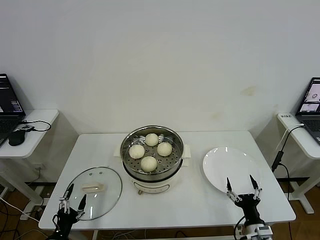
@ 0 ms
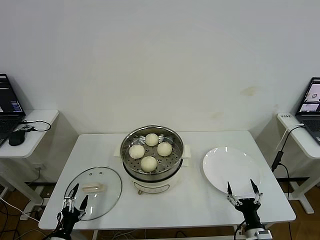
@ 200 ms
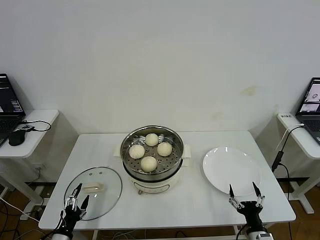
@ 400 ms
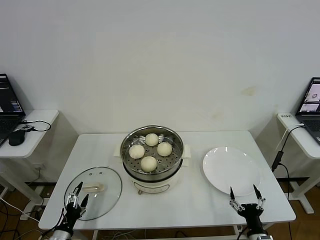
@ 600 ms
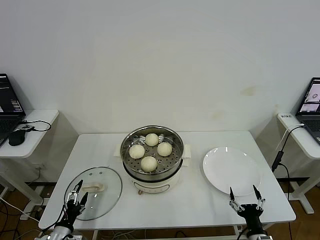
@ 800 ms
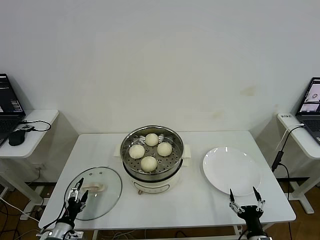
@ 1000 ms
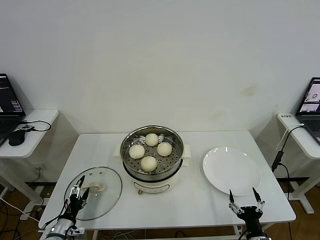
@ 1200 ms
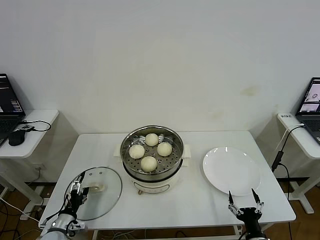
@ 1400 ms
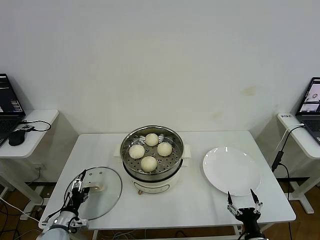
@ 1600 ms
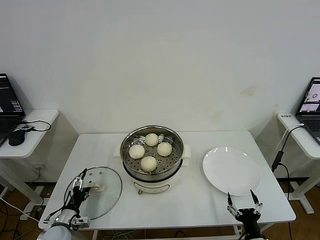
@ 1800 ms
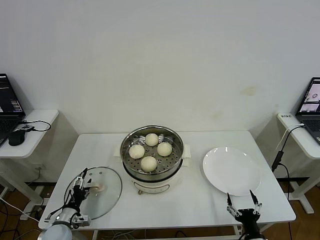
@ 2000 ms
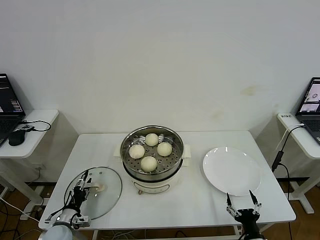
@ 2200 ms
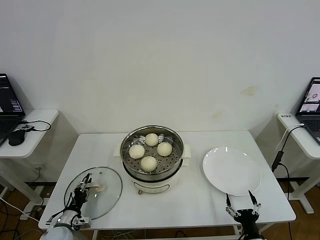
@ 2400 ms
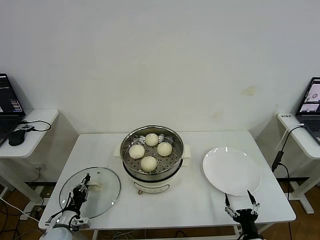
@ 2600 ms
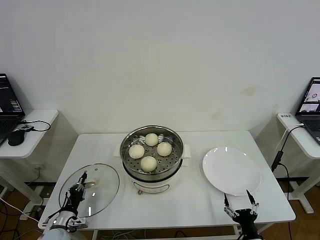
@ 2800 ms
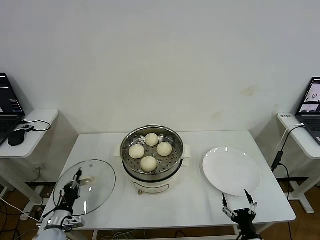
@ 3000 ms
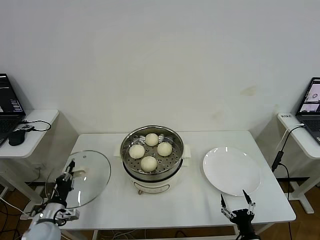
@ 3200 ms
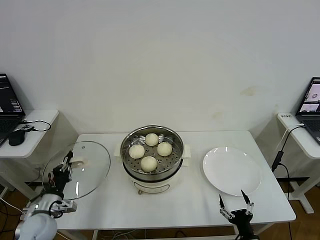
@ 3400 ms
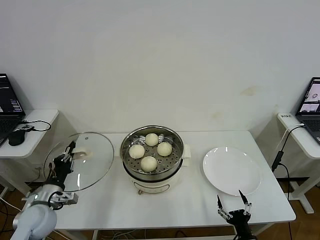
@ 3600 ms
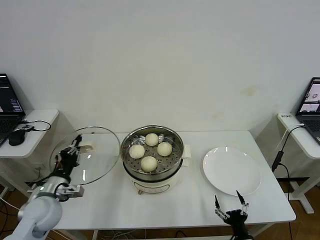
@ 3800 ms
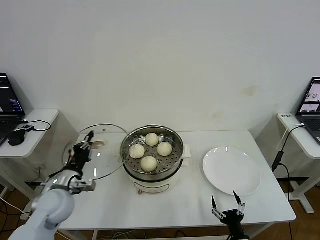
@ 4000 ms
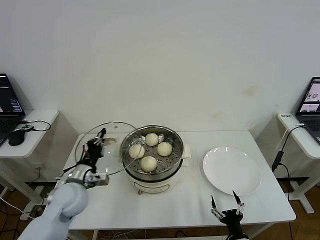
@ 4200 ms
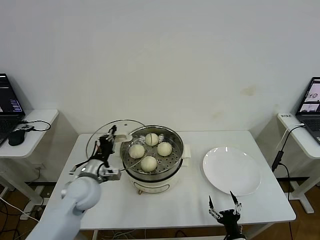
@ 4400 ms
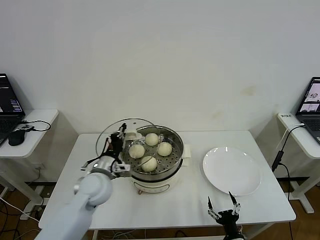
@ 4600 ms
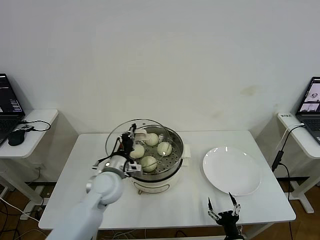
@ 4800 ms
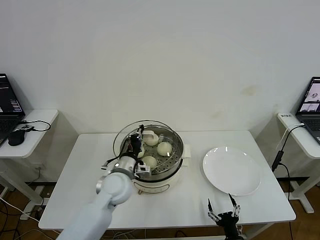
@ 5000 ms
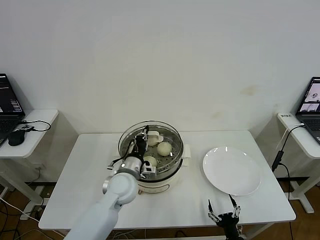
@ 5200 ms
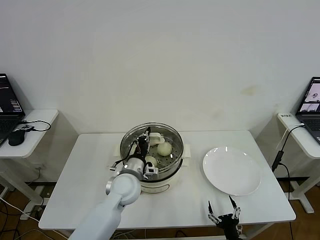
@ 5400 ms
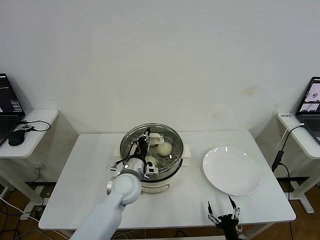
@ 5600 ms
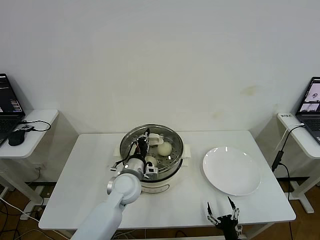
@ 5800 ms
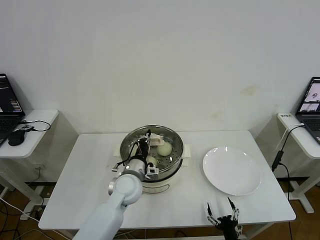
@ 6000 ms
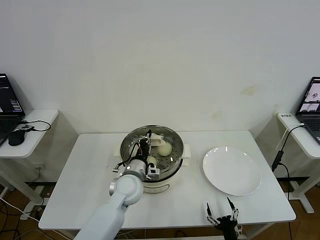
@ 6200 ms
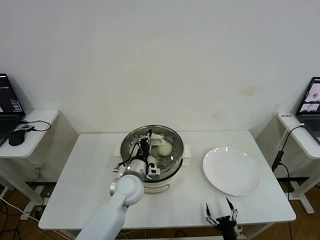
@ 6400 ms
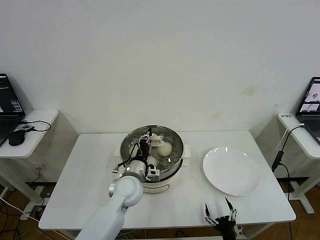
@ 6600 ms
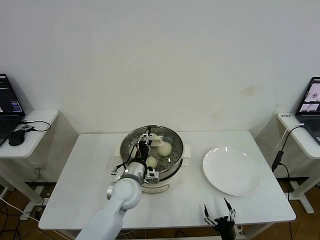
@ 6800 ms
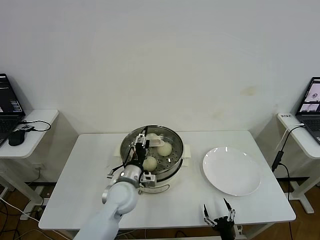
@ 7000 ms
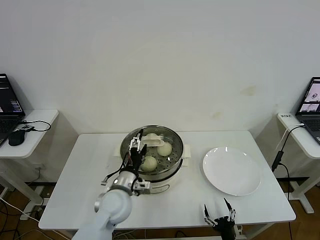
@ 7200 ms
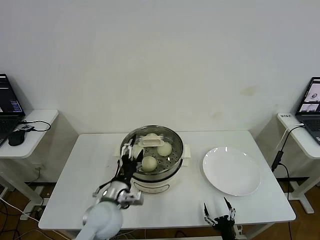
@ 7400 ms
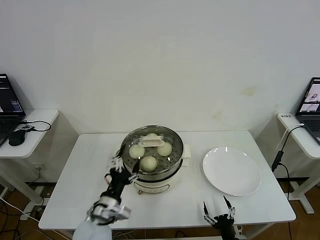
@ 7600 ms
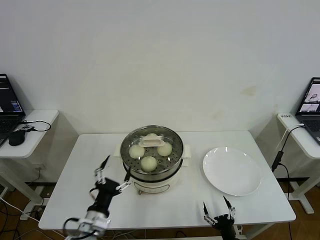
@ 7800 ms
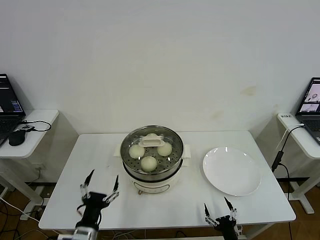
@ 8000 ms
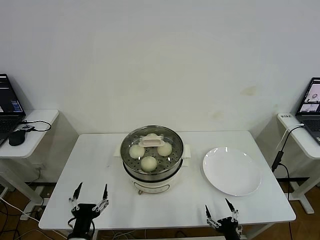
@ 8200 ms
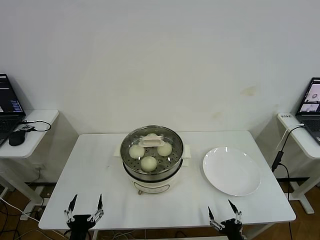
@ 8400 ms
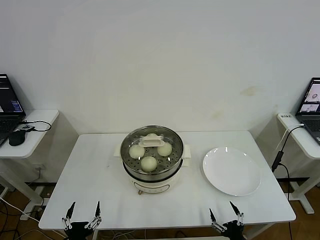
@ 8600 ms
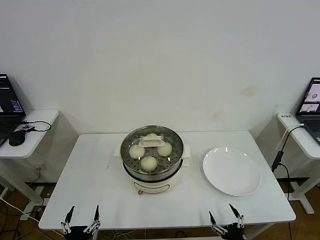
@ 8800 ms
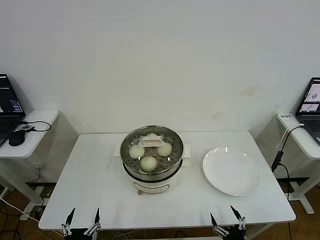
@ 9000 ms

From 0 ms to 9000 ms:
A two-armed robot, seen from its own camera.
Step, from 0 ms to 2800 ms: Grasp the pot lid with left gripper.
Step, from 3000 ms to 6800 ms: Place the pot lid on the steamer with left gripper.
From 0 ms to 1600 ms: The left gripper heads forward, covering roughly 10 cm.
From 1600 ms to 3000 ms: The left gripper closes up.
From 3000 ms to 4400 ms: The left gripper travels upward, to the right and forward by approximately 25 cm.
From 4400 ms to 6000 ms: The left gripper shifts about 15 cm to the right.
From 6000 ms to 7600 ms: The left gripper heads backward and to the left, covering about 15 cm, and opens its fingers.
From 7600 ms to 9000 ms: The left gripper goes roughly 20 cm backward, downward and to the left; the right gripper ends up about 5 cm from where it was.
